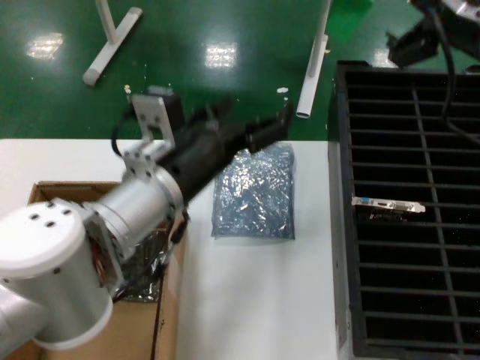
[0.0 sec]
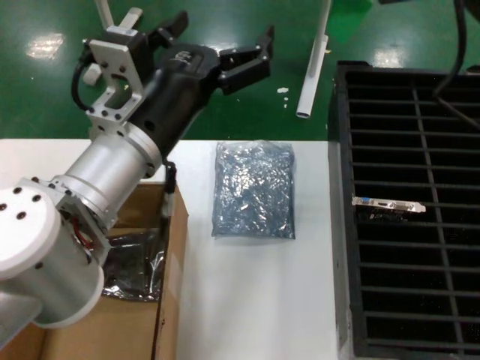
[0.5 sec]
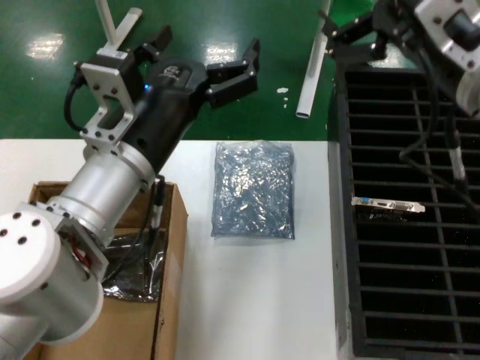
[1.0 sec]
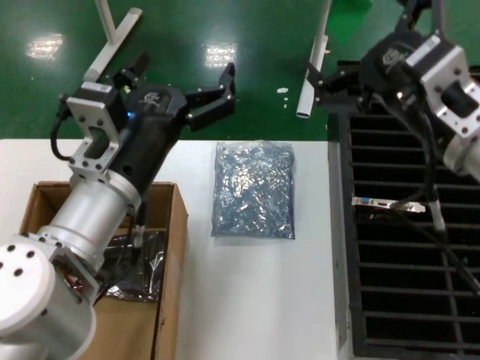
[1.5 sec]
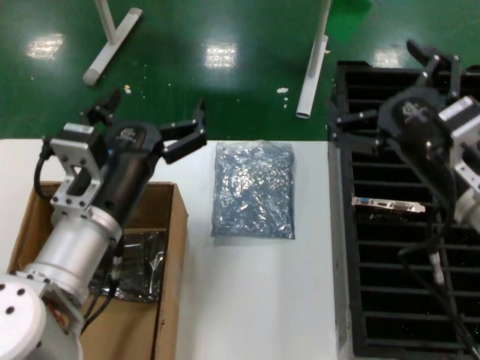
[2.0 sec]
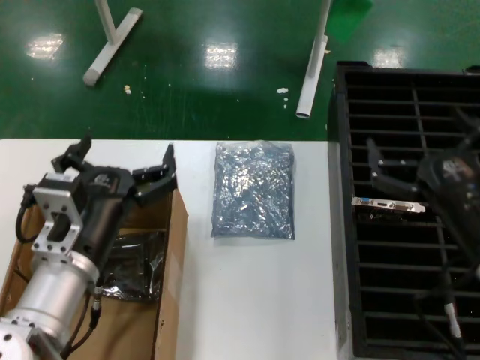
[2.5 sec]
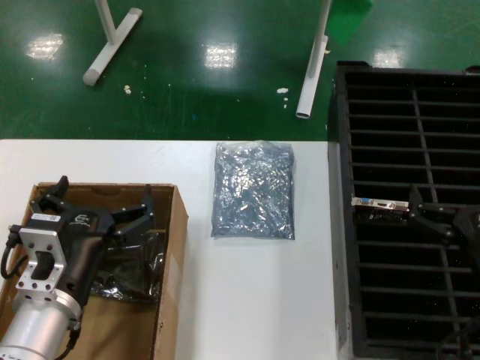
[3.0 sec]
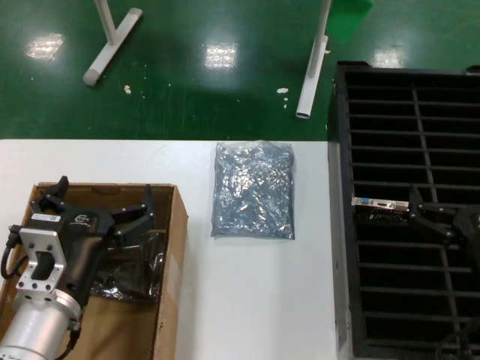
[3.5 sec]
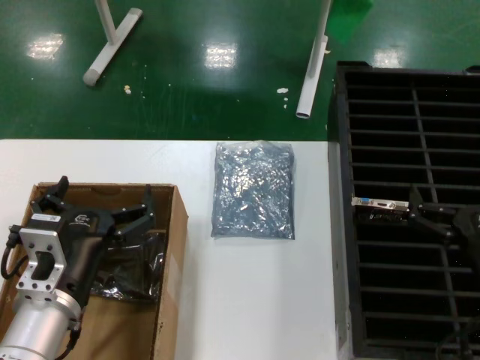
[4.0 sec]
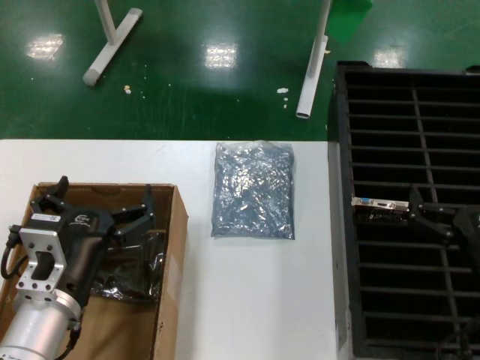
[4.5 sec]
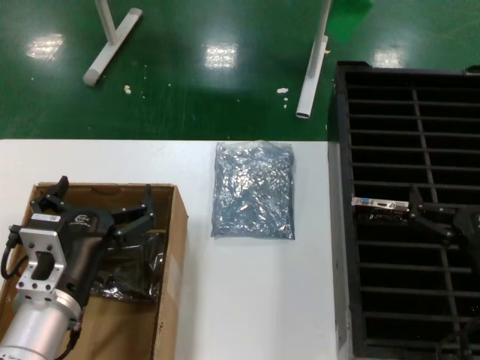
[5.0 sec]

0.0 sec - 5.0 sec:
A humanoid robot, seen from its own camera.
Task of the whole recording: take out graphics card from box remove packaging put into black container.
0.0 sec - 2.5 sec: The right hand shifts some 25 cm downward, while the left hand moves downward and to the left, roughly 10 cm.
2.5 sec - 5.0 sec: The right hand moves downward, approximately 5 cm.
